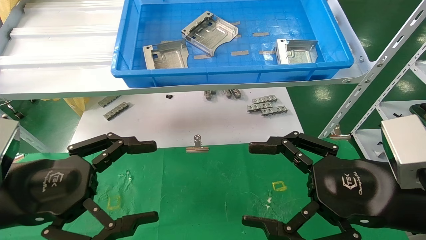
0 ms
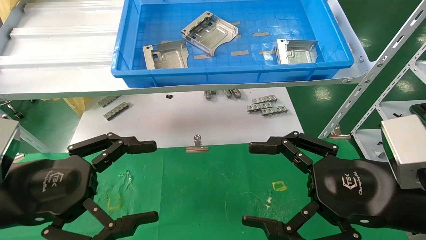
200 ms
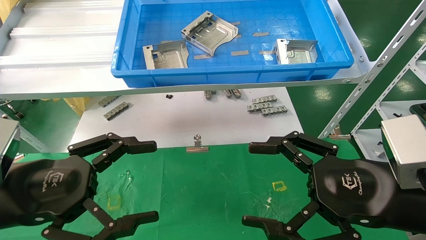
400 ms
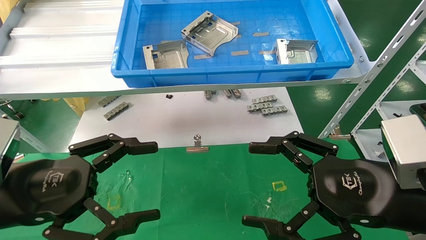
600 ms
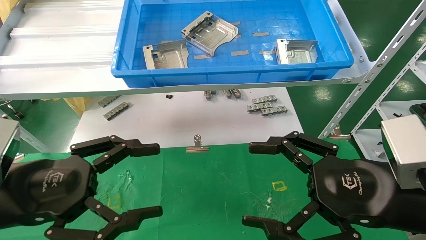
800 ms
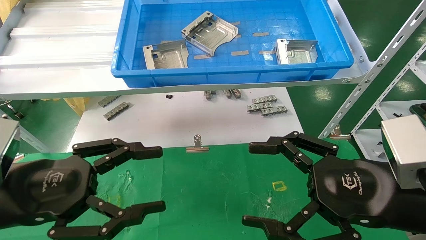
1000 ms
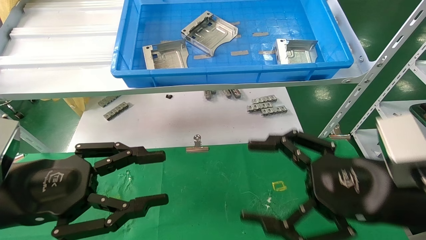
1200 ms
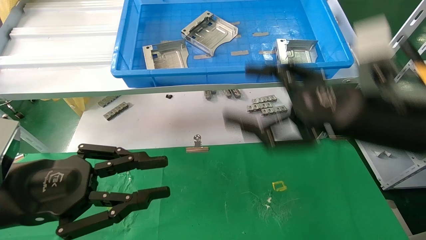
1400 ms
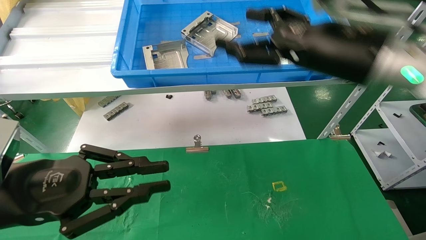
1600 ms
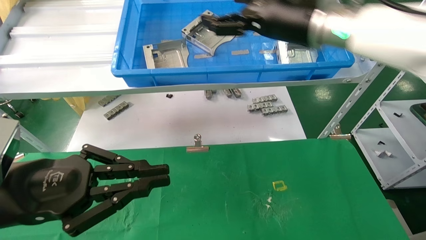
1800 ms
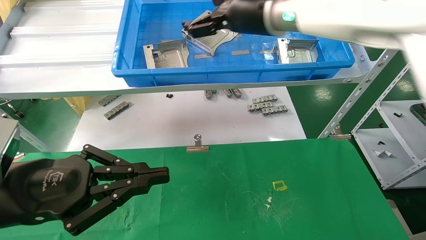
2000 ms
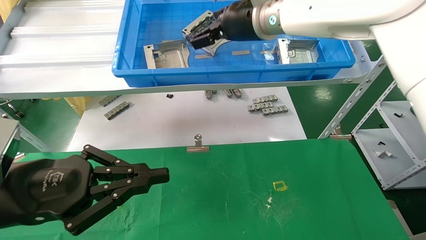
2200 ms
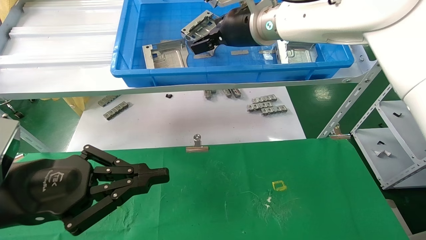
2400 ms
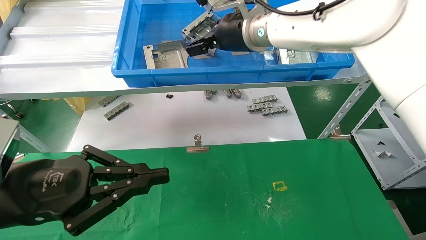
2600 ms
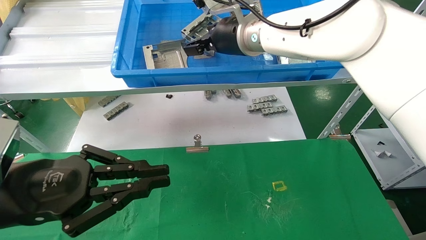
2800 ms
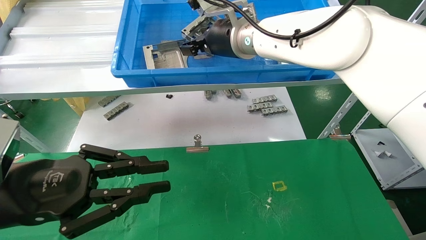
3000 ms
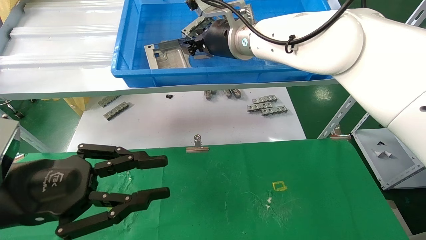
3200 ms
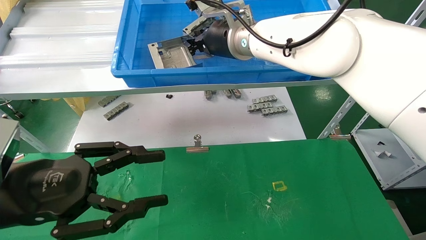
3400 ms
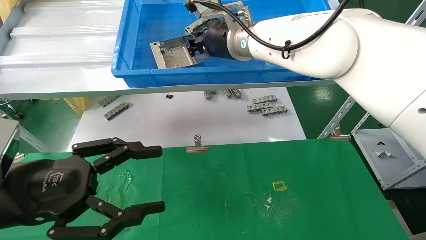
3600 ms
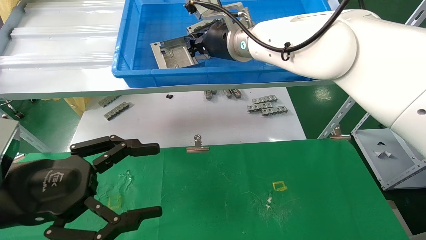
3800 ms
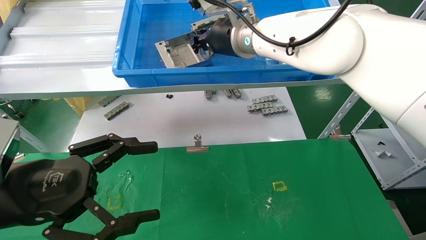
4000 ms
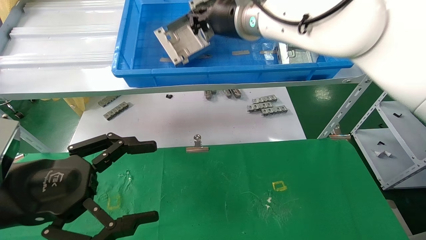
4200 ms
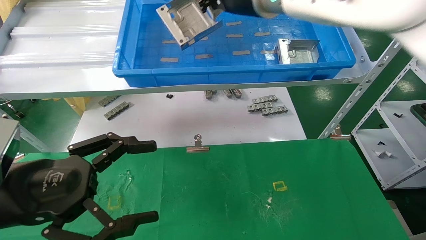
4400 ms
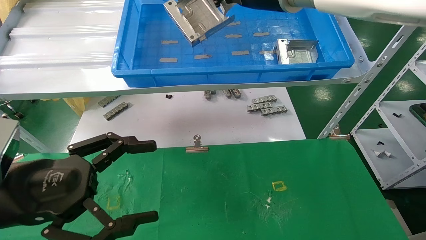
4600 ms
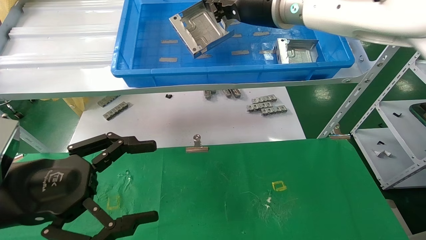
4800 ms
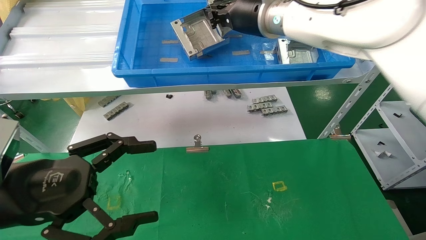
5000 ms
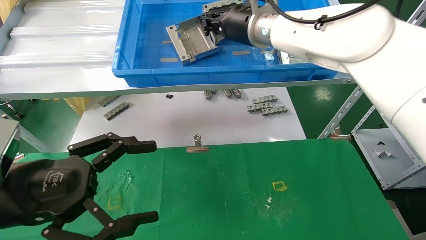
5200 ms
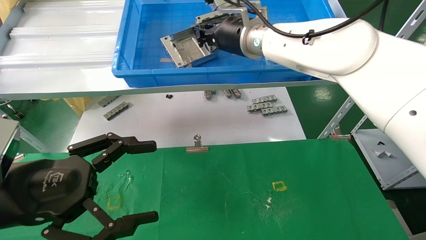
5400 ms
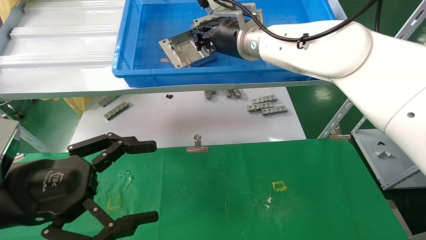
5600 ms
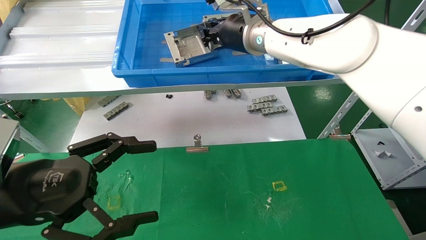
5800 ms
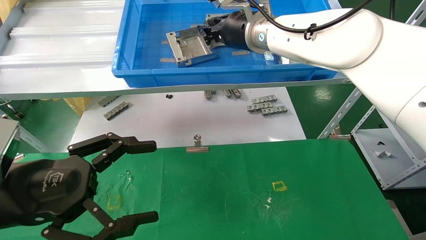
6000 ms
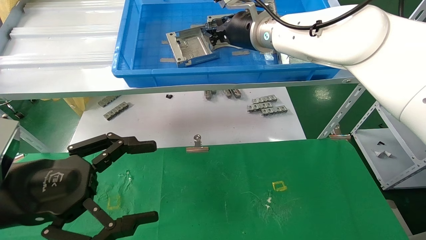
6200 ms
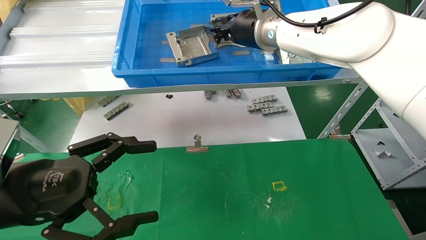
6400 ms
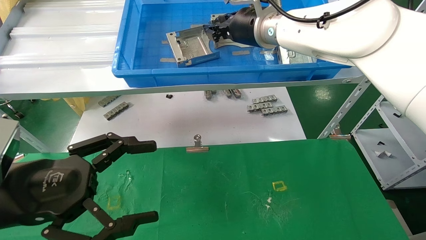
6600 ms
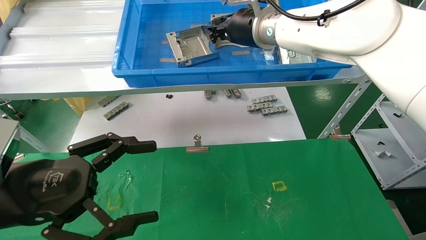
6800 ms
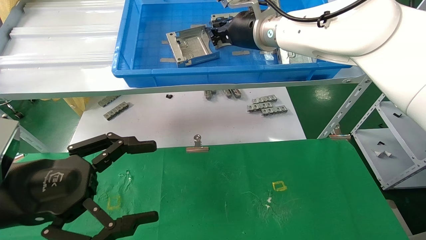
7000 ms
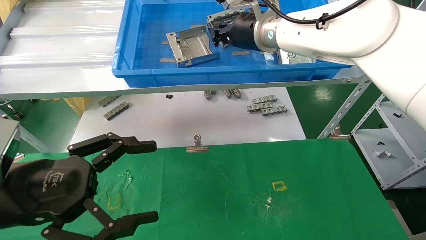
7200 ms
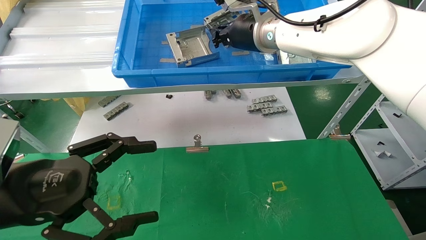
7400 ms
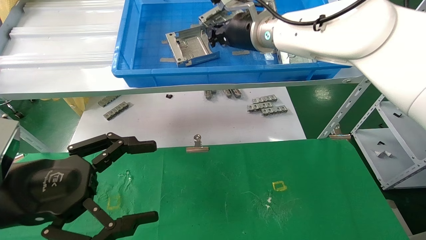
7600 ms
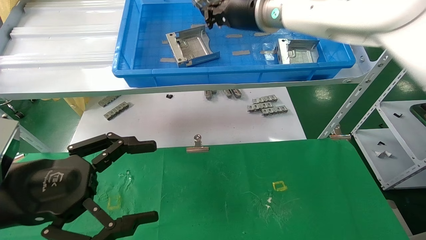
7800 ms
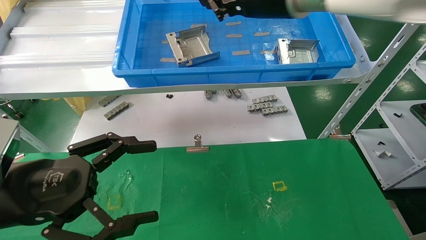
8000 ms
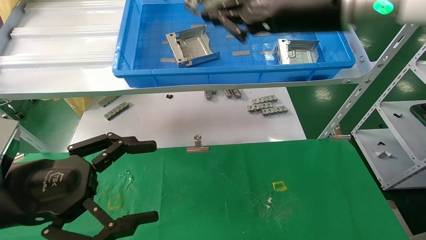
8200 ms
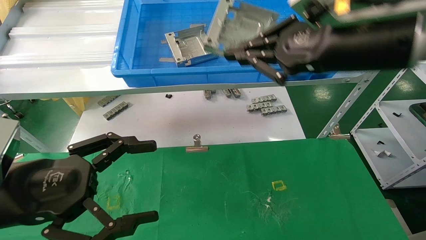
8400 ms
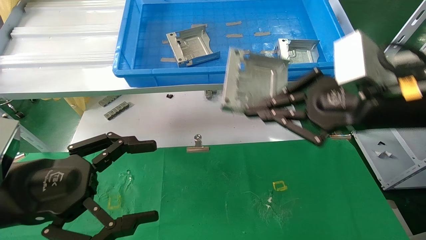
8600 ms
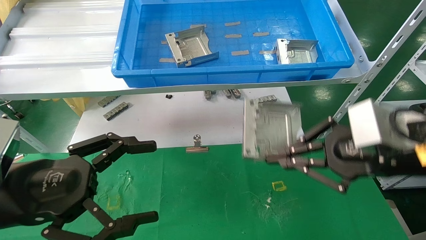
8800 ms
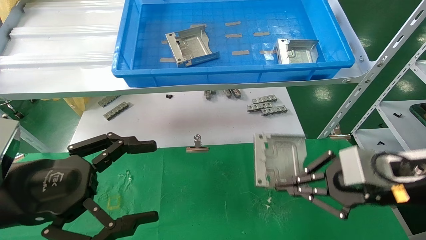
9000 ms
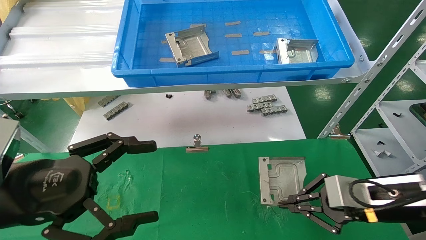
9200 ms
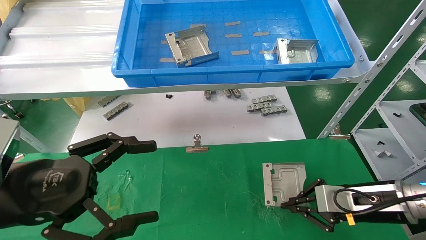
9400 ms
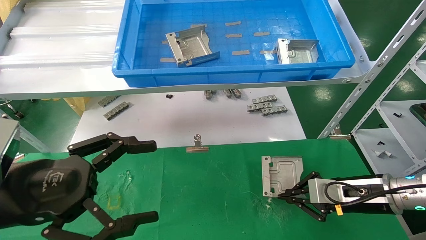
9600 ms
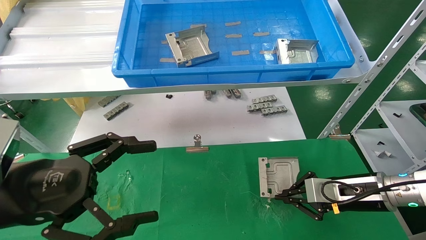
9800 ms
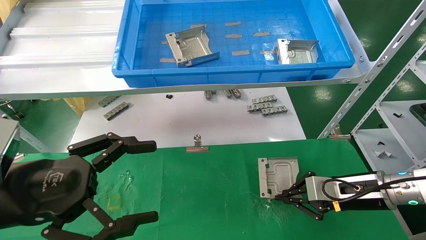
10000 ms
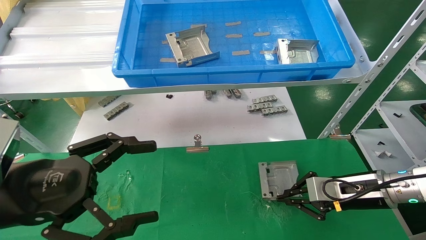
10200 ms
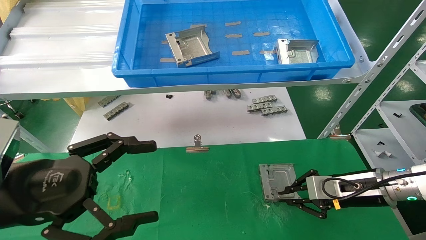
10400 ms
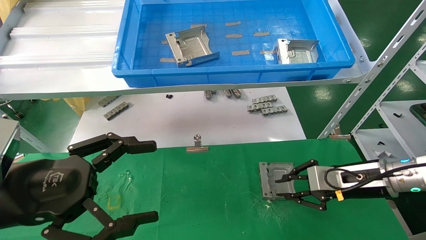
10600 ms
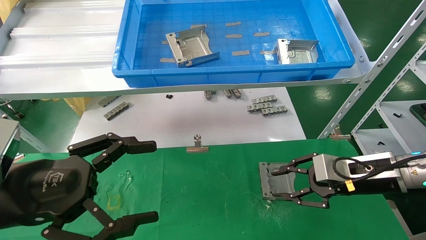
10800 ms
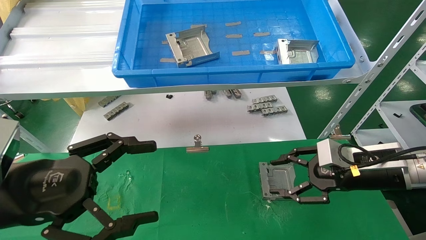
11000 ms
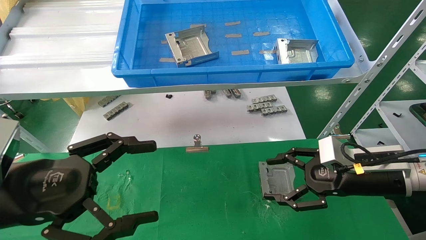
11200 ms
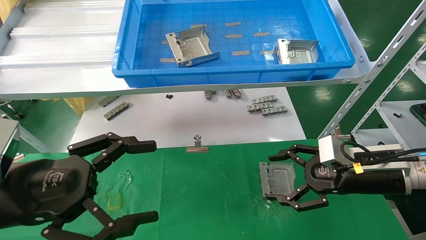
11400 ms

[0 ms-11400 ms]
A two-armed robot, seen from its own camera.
Task of the whole recording: use the mechanical arm to pick up the parts and place them on the table.
Step, 1600 ms to 8000 ms: Pick up the hard drive bracket from the feeding area.
Step, 8200 ms to 10600 ms: Place the hard drive bracket into the box.
0 ms to 1400 ms: The right gripper is displaced upward and forward by some 10 cm. The left gripper closes.
1400 ms to 2800 ms: The left gripper closes, while the right gripper is displaced to the left, forward and upward by approximately 25 cm.
2800 ms to 4200 ms: The right gripper closes up; the left gripper opens up.
4200 ms to 5600 ms: The right gripper moves approximately 5 cm.
5600 ms to 7200 ms: The grippers make only small movements.
7200 ms to 8600 ms: The right gripper shifts approximately 25 cm backward and to the right.
8600 ms to 10000 ms: The right gripper heads downward and forward, covering roughly 25 cm.
10000 ms to 11400 ms: The right gripper moves upward, about 5 cm, and opens its fingers.

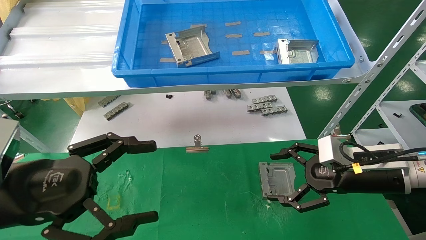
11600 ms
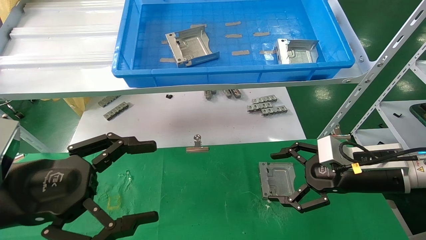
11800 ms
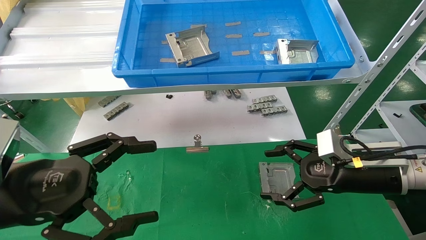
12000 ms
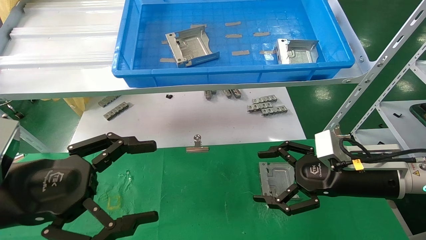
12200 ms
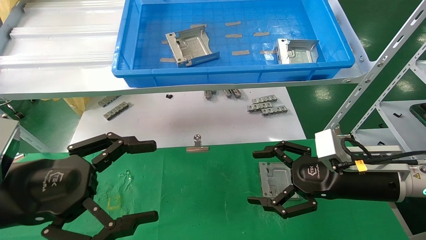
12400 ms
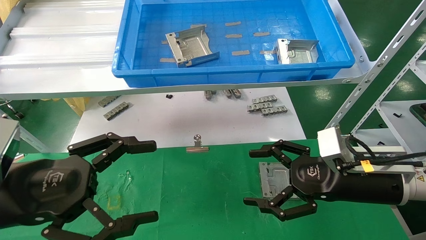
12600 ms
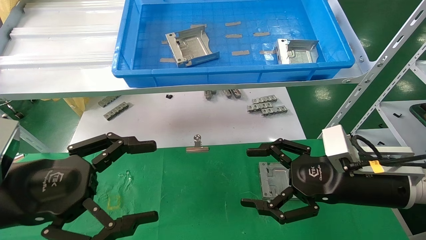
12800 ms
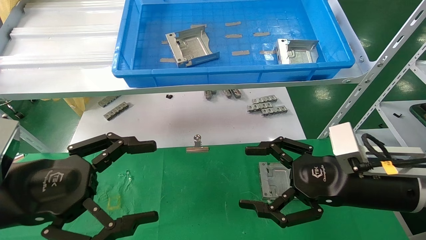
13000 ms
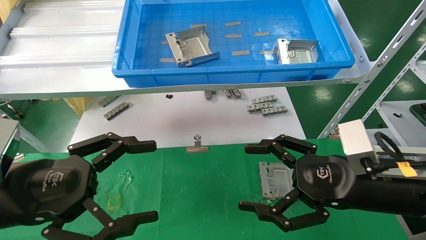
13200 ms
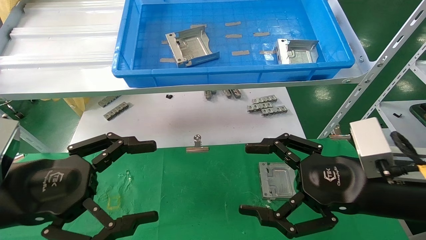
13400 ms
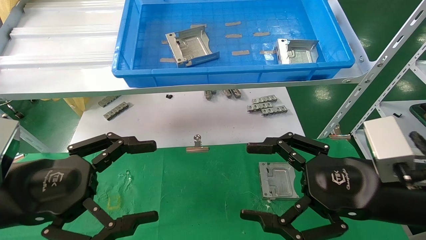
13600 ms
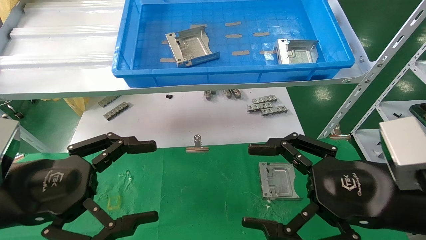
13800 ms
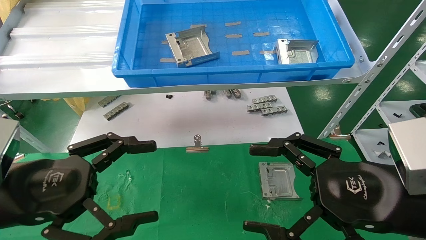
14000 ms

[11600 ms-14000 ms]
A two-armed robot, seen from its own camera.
Task of the whole recording: use the mechanical arm to pick up the parts and place them on the table.
11600 ms to 12800 ms: The right gripper moves about 5 cm.
12800 ms to 14000 ms: The right gripper shifts roughly 10 cm backward.

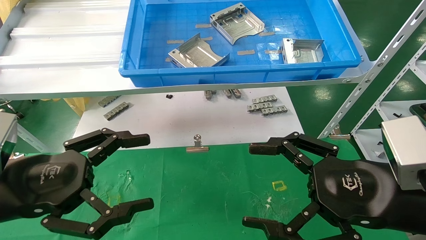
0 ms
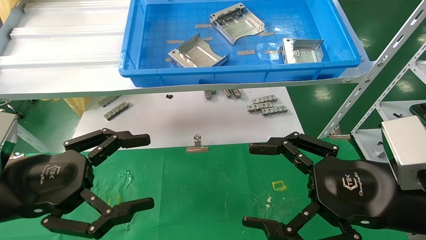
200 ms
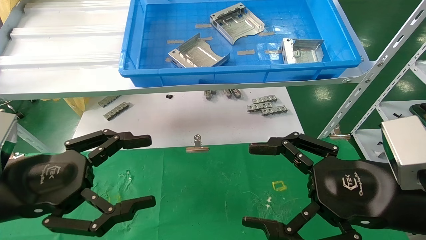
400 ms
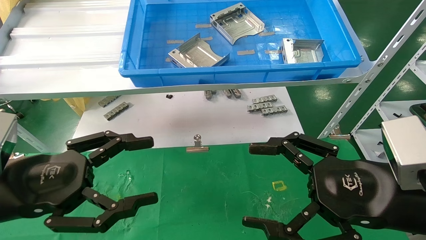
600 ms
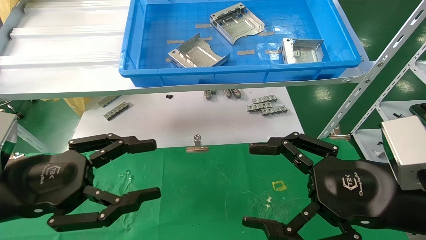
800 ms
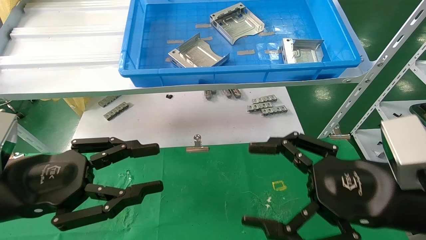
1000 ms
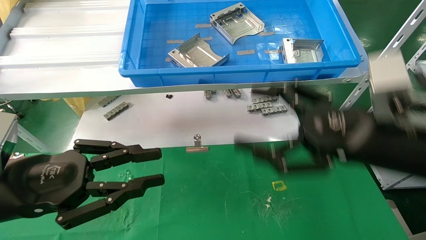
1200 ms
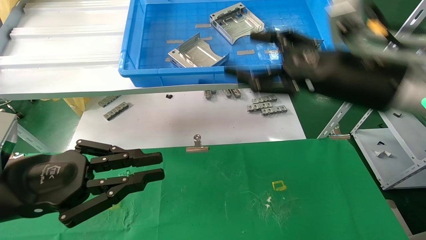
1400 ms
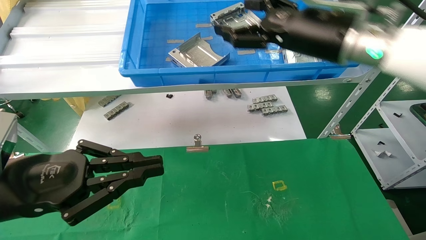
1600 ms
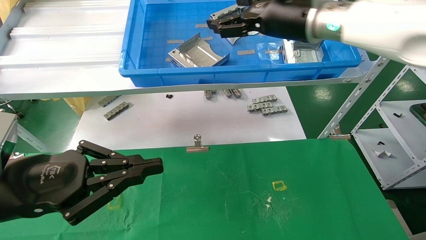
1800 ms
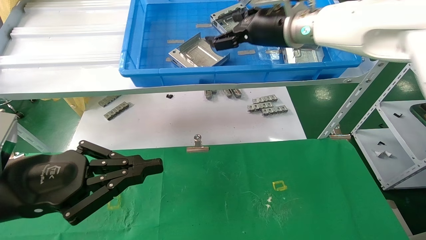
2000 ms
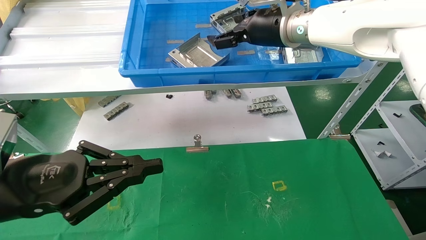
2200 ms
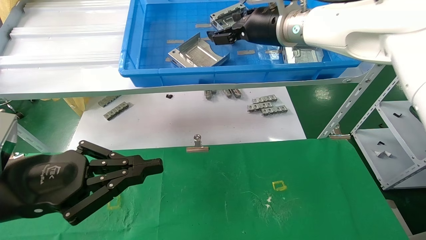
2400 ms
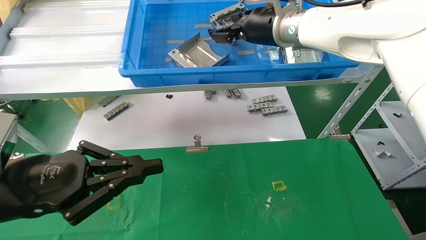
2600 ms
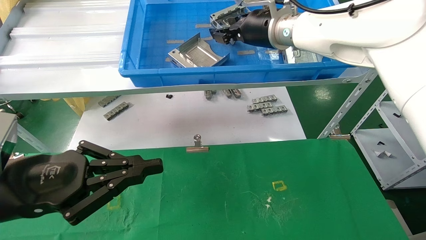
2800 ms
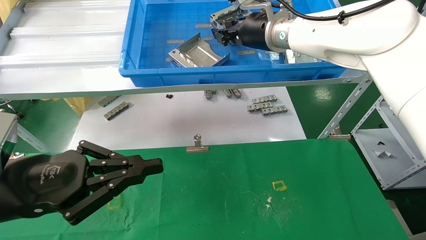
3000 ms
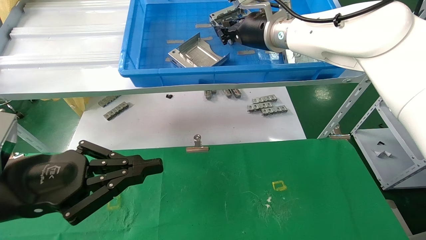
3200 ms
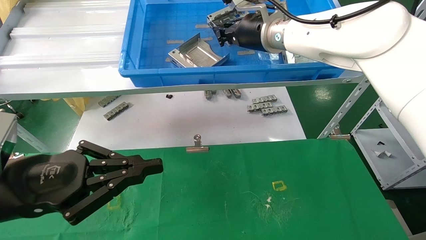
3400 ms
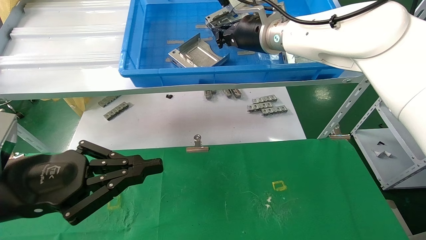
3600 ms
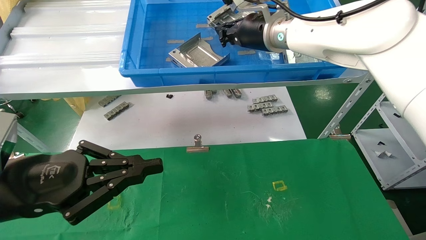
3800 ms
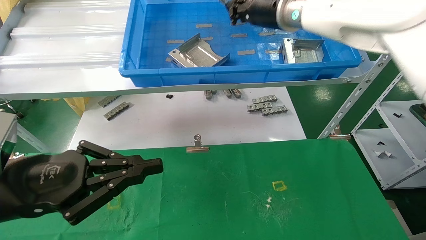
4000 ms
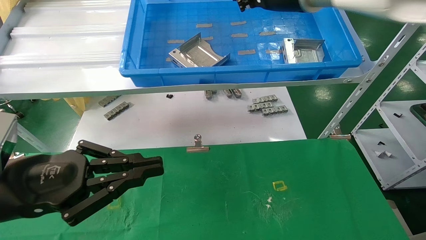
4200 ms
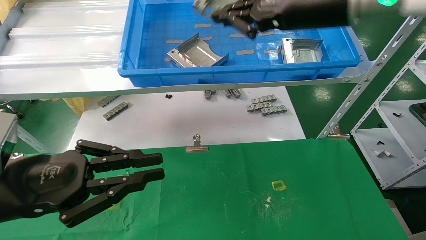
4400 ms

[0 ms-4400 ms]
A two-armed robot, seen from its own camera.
Task of the whole recording: use the mechanical arm to pick up the parts and place them on the table.
Step, 1400 ms to 4400 ms: Pick up the hard drive bracket from the feeding area.
0 ms to 1400 ms: The left gripper closes up, while the right gripper shifts some 15 cm forward and upward.
1400 ms to 3000 ms: The right gripper shifts some 20 cm forward, to the left and upward, and closes.
3000 ms to 4400 ms: The right gripper goes approximately 15 cm backward and to the right, and closes its fingers.
